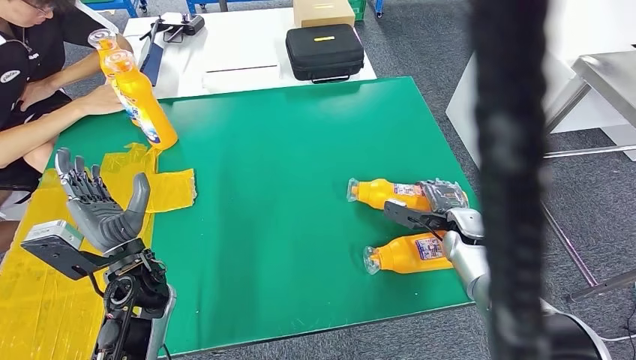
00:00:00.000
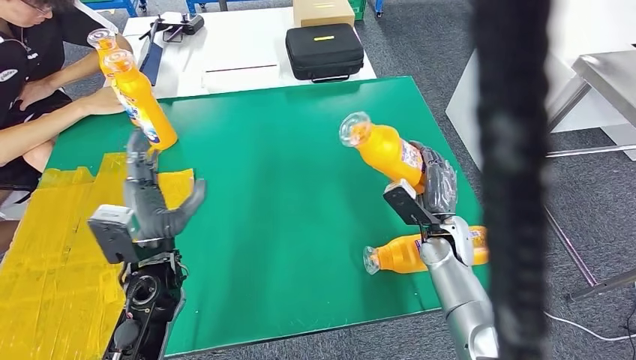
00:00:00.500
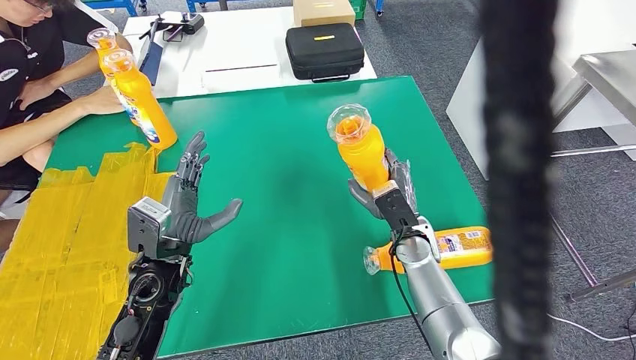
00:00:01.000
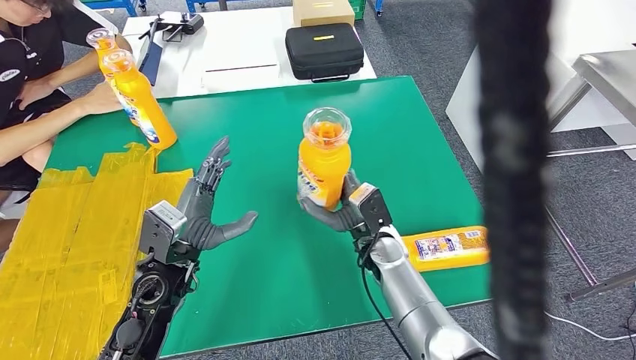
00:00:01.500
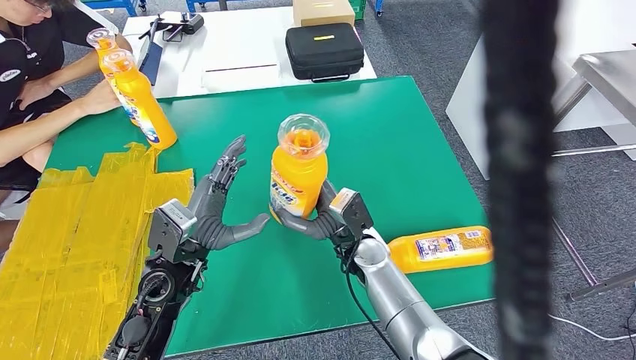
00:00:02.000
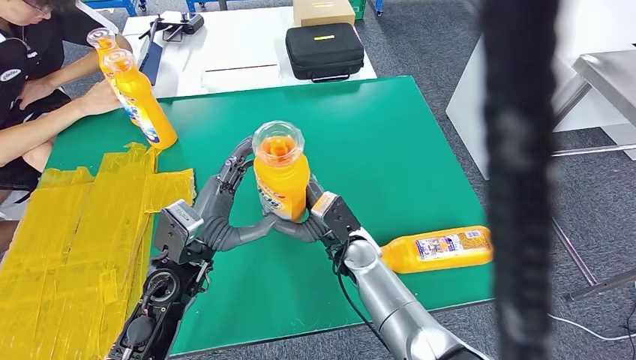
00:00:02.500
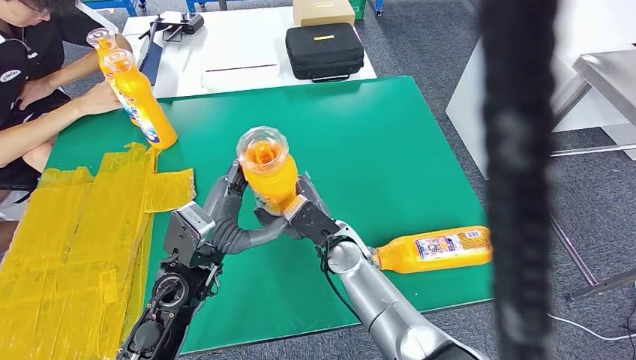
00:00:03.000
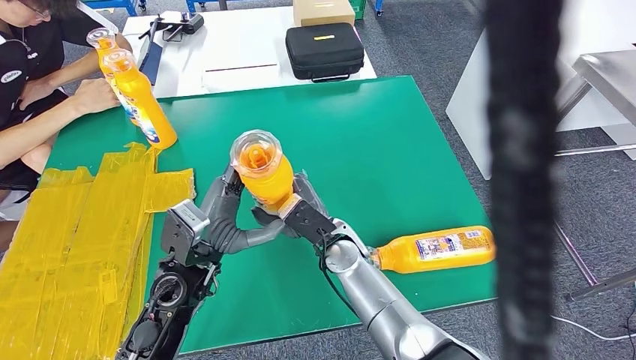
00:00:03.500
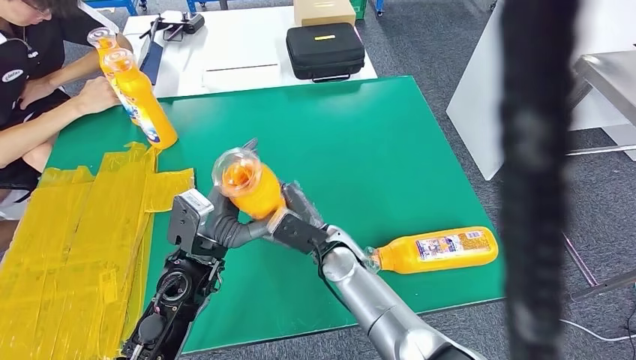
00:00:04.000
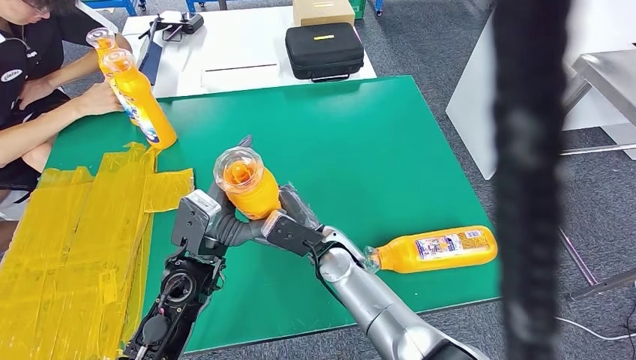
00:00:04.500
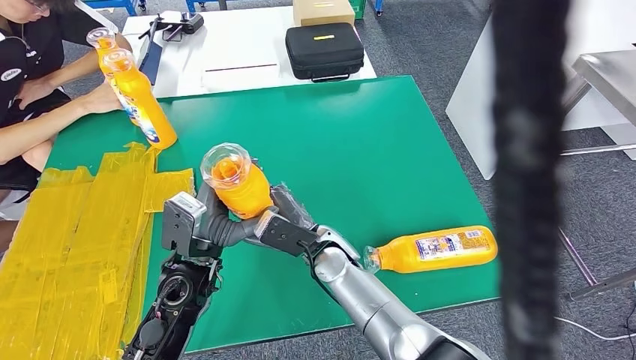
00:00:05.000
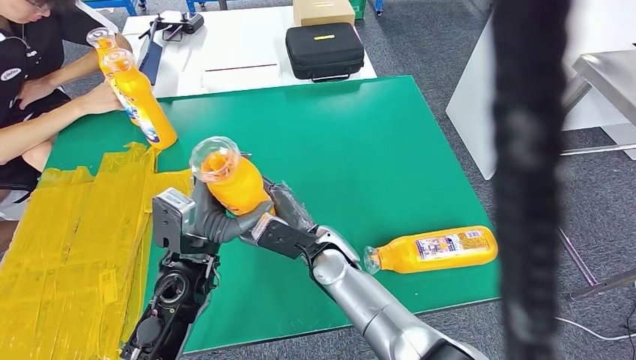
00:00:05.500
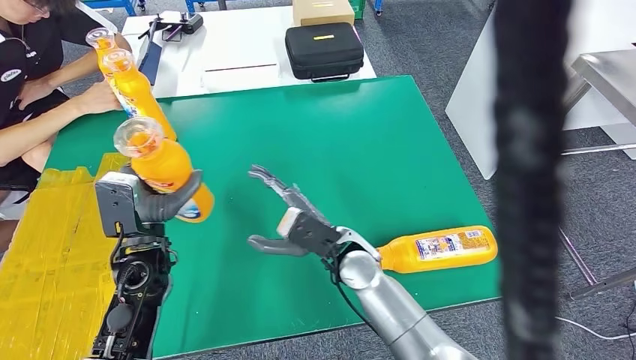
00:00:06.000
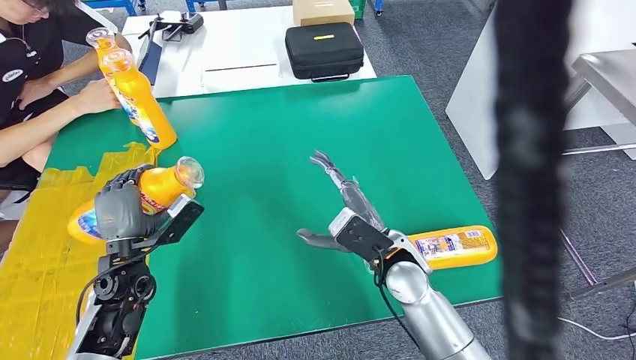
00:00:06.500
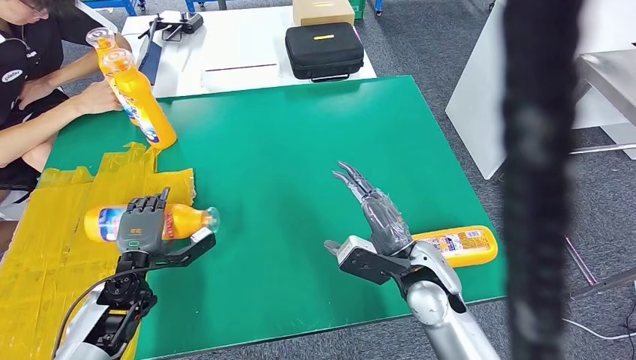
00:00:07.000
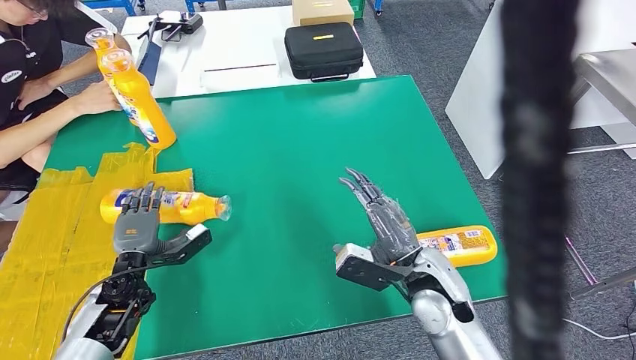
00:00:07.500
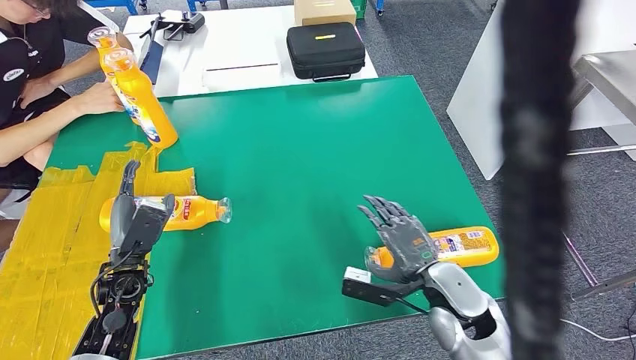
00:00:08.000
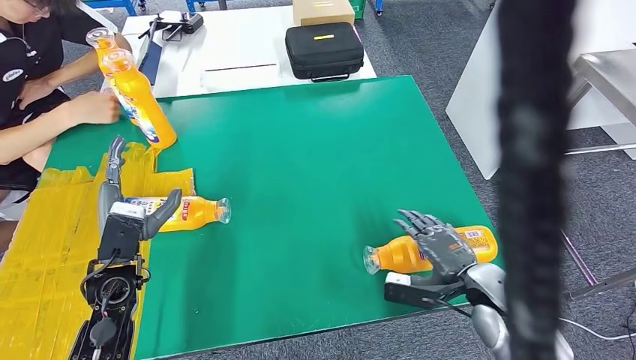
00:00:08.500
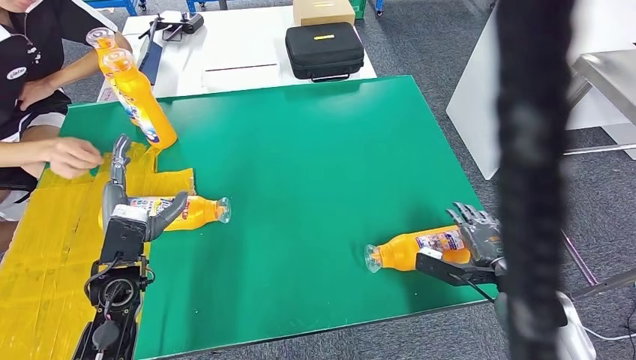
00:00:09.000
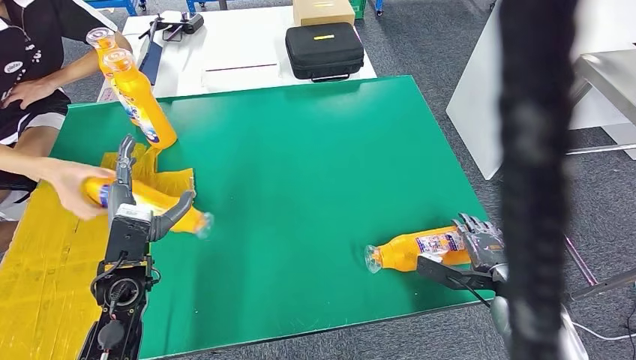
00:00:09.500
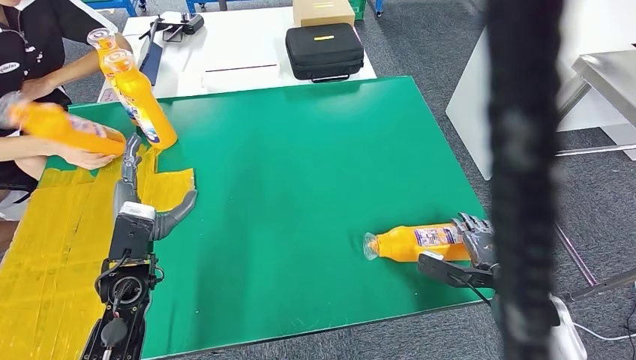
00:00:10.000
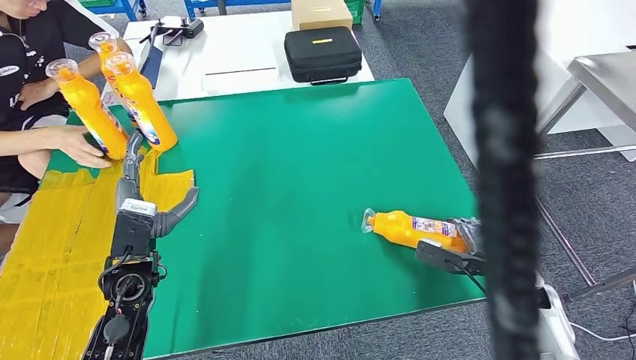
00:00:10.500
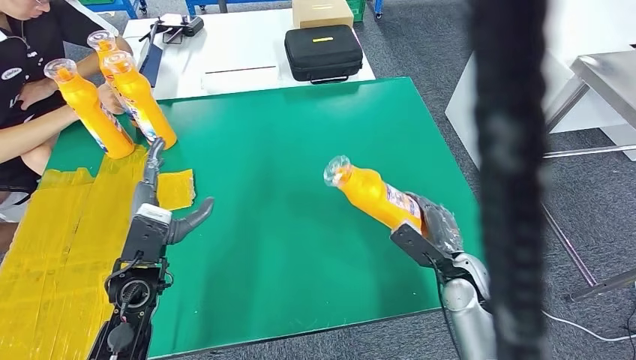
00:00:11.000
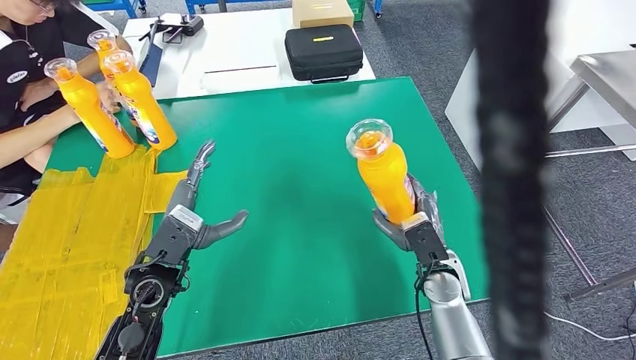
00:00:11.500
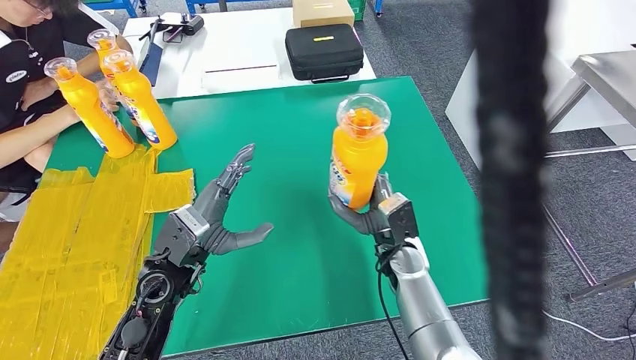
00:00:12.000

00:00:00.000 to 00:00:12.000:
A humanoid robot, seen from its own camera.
Step, 00:00:01.000 to 00:00:08.000: Flip the fast-moving consumer goods bottle to the front side.
Step, 00:00:08.500 to 00:00:12.000: Pick up the fast-moving consumer goods bottle from the table.

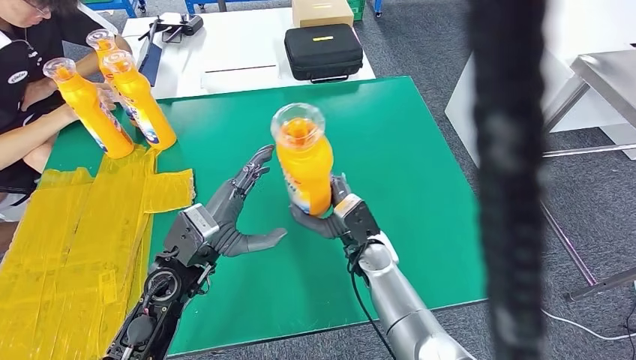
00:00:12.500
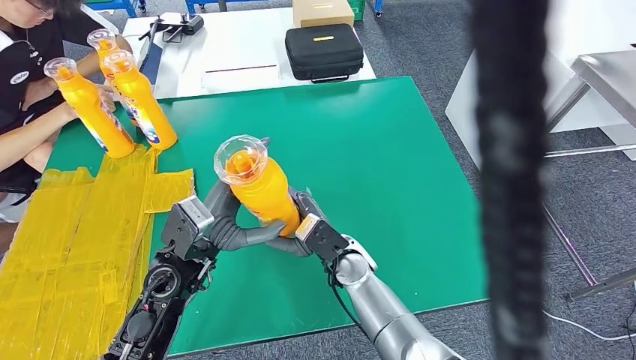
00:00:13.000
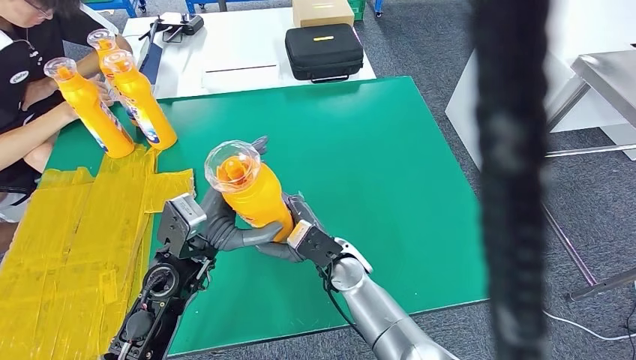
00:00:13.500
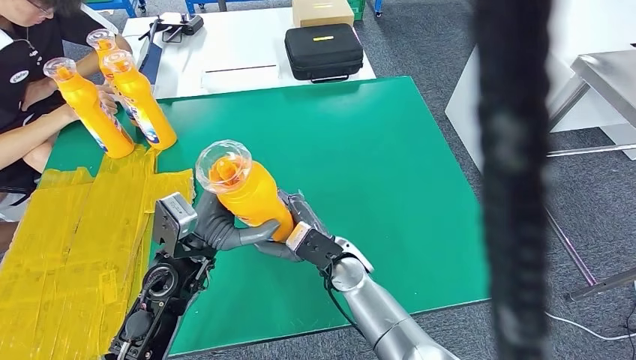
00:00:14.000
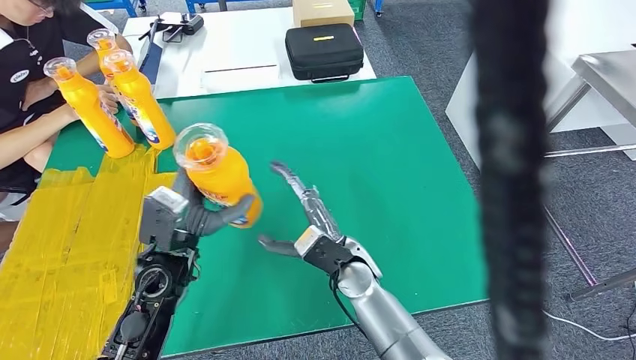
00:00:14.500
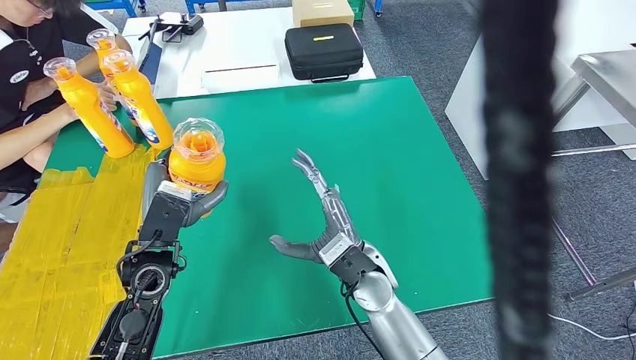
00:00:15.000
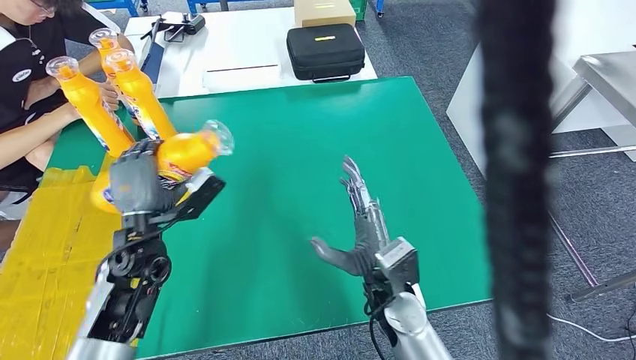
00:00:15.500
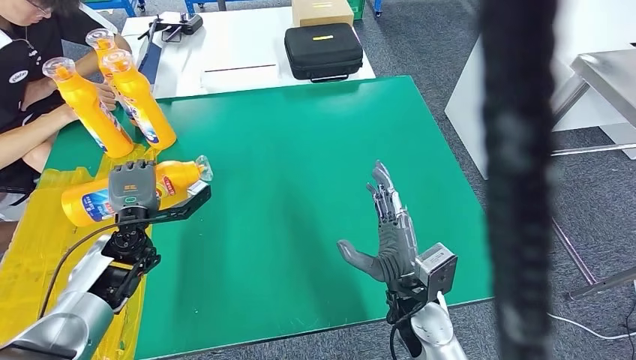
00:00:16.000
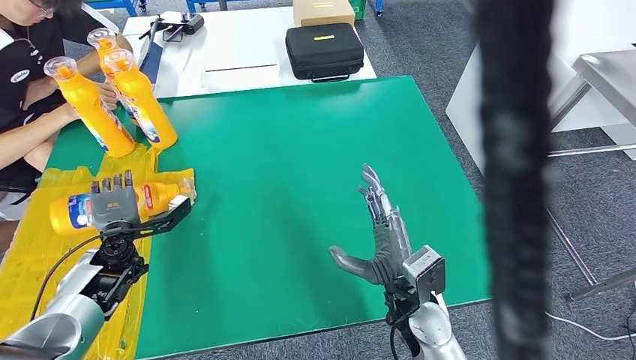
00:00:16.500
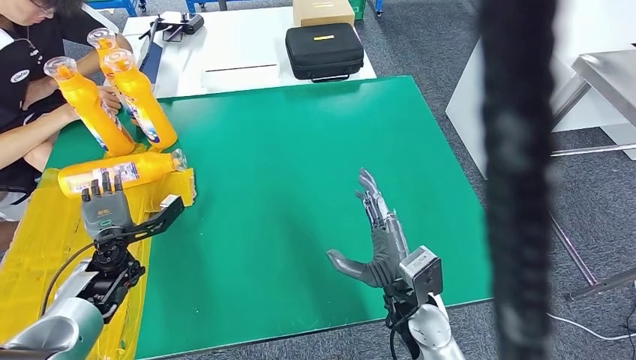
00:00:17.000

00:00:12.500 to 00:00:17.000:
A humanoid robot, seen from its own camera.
Step, 00:00:12.500 to 00:00:17.000: Flip the fast-moving consumer goods bottle to the front side.
00:00:12.500 to 00:00:14.500: The right hand ends up about 5 cm from where it was.
